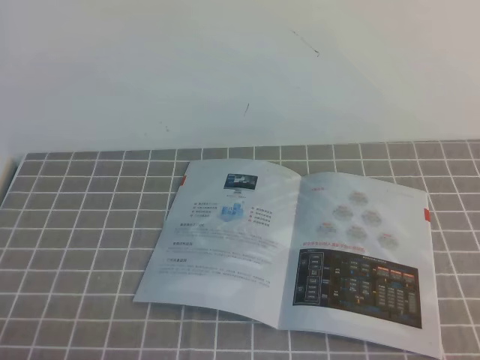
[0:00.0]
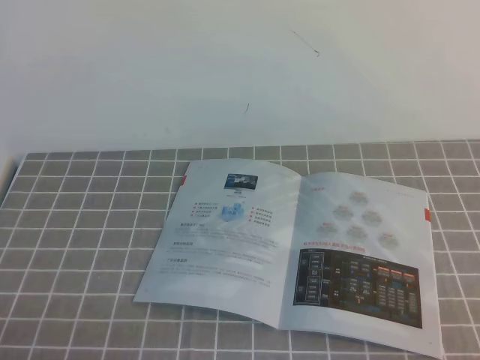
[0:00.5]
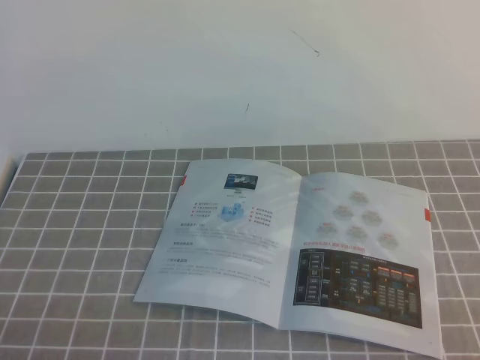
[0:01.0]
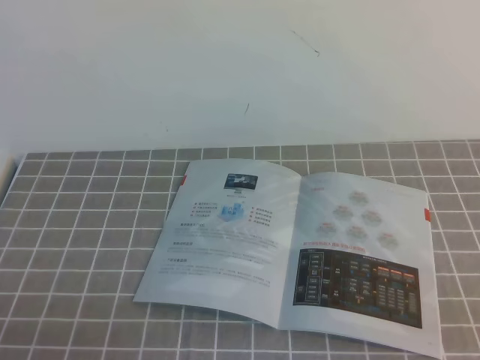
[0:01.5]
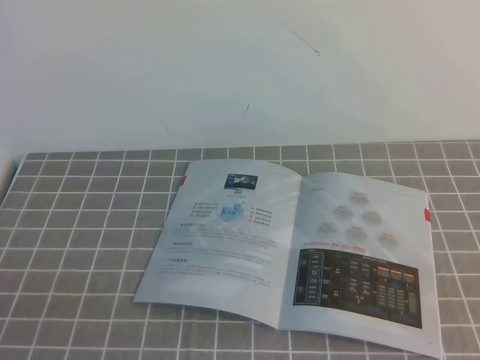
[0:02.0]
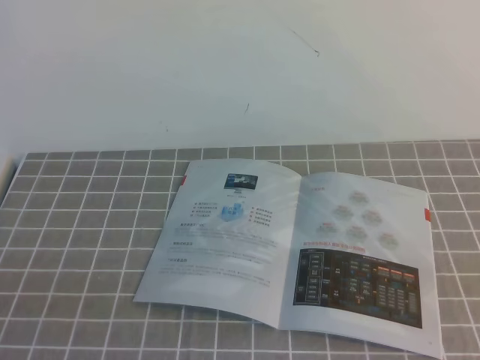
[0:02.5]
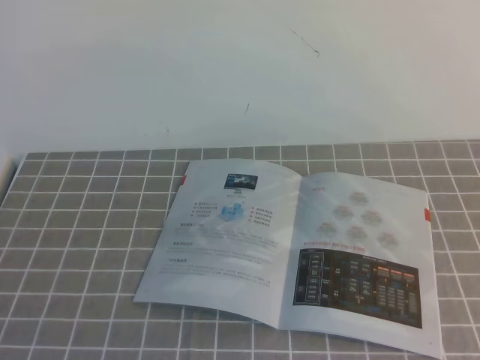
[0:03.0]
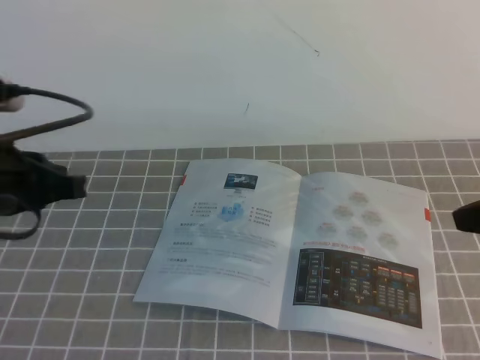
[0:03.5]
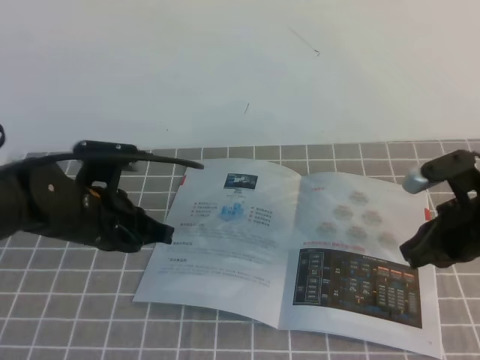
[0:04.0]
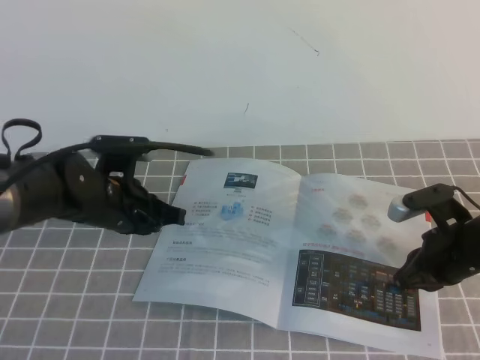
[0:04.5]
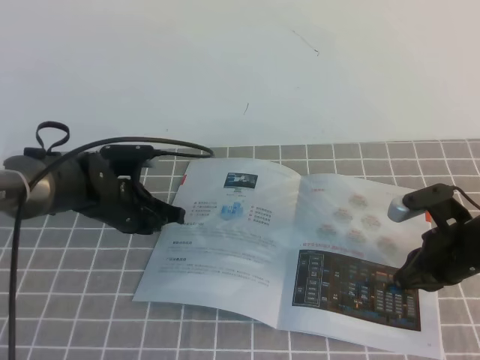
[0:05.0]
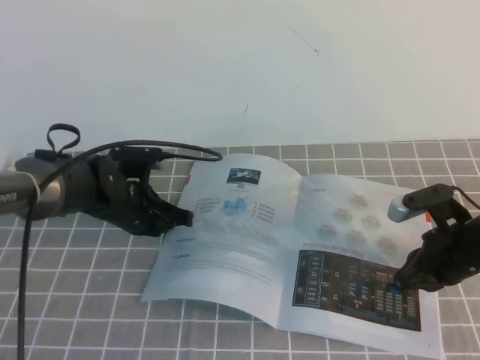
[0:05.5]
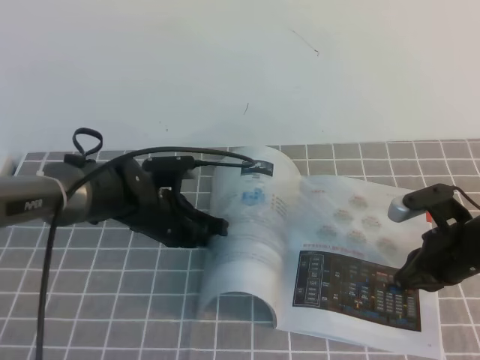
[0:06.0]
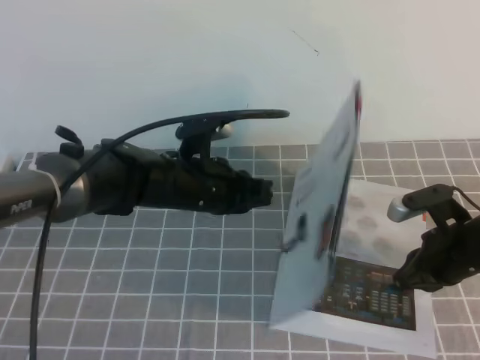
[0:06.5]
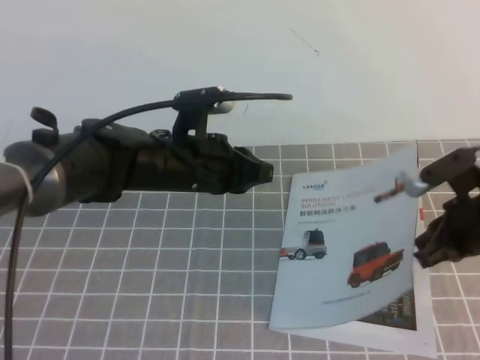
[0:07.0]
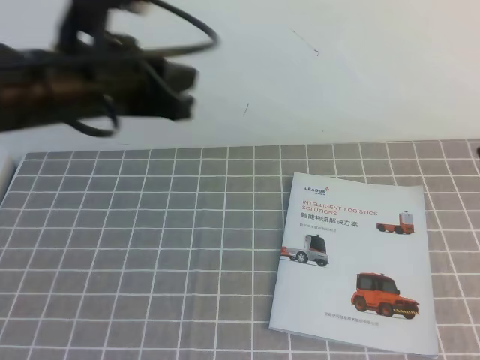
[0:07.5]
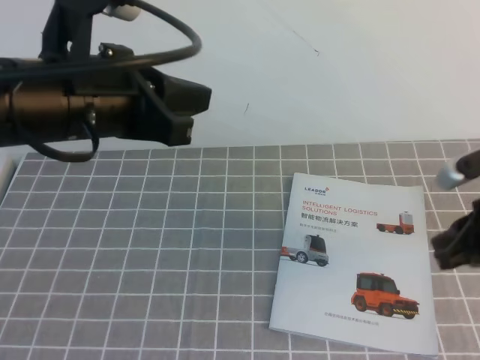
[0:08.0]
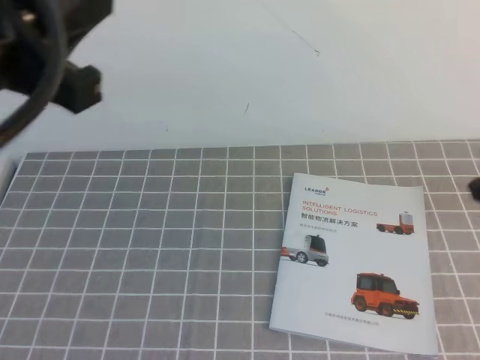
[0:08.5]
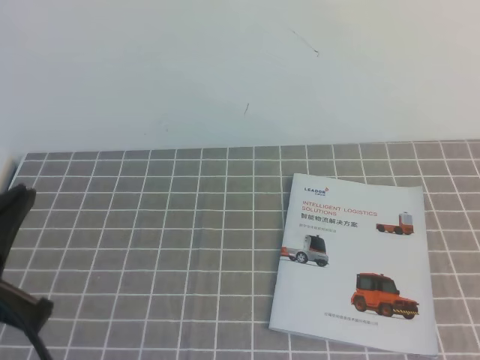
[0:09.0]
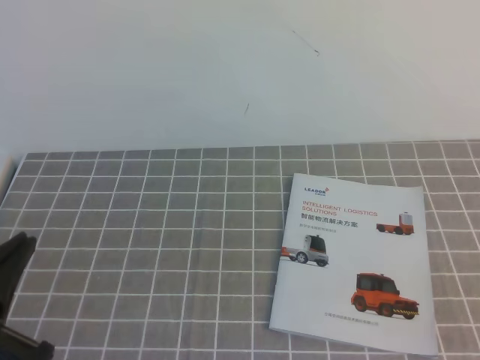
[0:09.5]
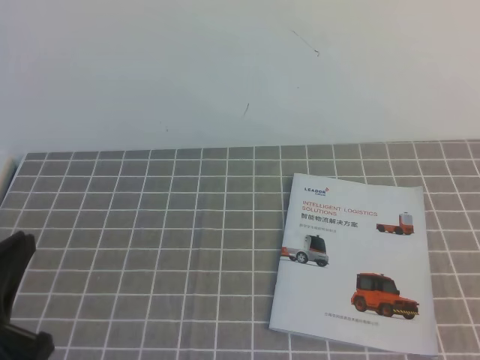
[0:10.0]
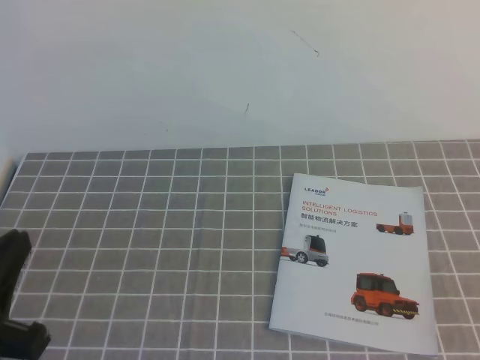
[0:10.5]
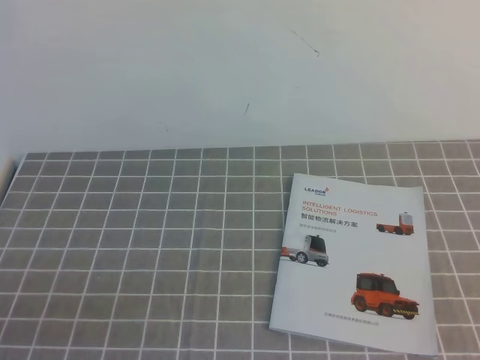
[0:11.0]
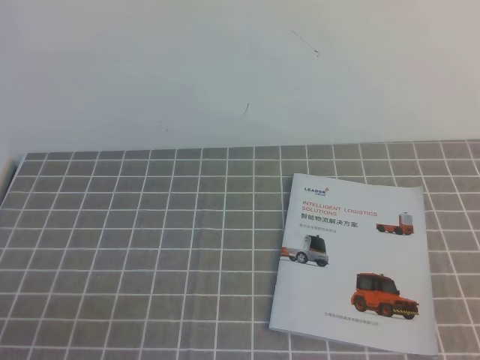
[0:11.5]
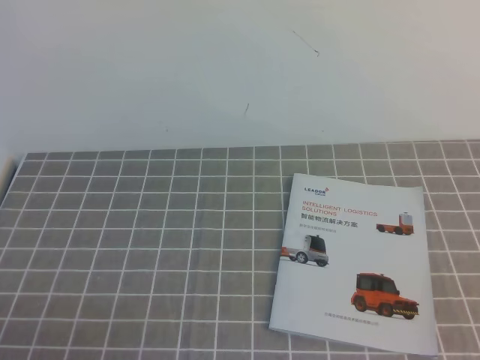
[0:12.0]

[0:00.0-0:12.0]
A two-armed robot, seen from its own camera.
Task of the whole recording: on the grey tablecloth, hold the book with one hand and close it with the other.
0:02.0 to 0:04.0: The two grippers go roughly 25 cm forward.
0:04.0 to 0:06.0: The left gripper moves downward, forward and to the right, approximately 15 cm; the right gripper goes approximately 5 cm downward.
0:06.0 to 0:08.0: The right gripper heads upward, covering some 10 cm, while the left gripper travels upward and backward by roughly 30 cm.
0:08.0 to 0:10.0: The left gripper goes about 20 cm backward, downward and to the left. Meanwhile the right gripper shifts some 25 cm backward.
0:10.0 to 0:12.0: The left gripper is displaced downward by some 10 cm.
